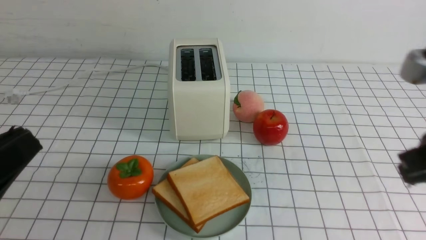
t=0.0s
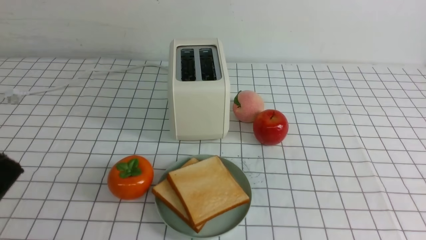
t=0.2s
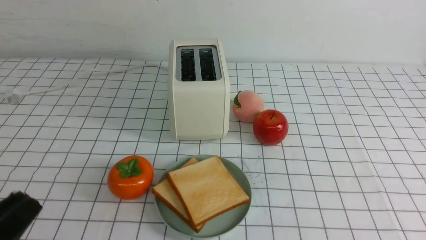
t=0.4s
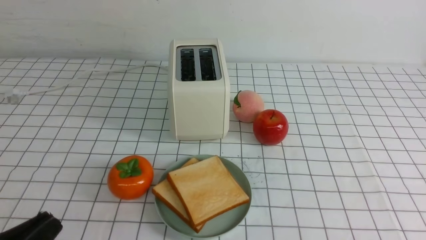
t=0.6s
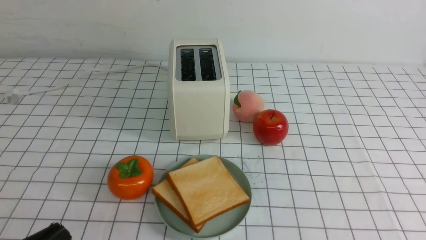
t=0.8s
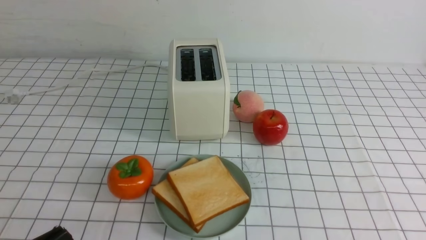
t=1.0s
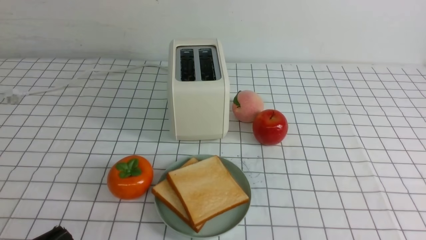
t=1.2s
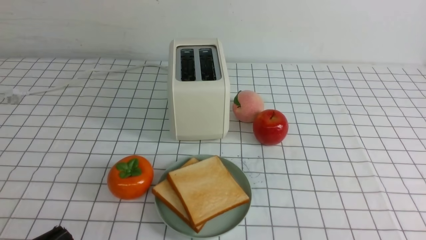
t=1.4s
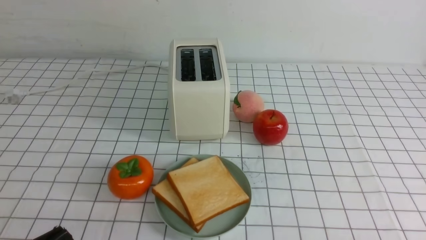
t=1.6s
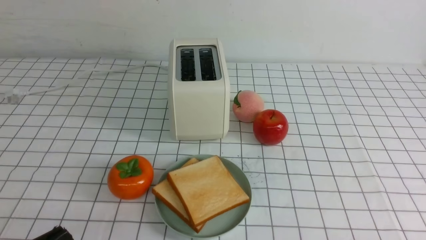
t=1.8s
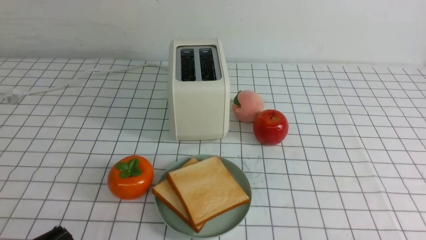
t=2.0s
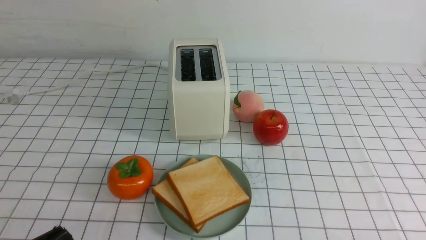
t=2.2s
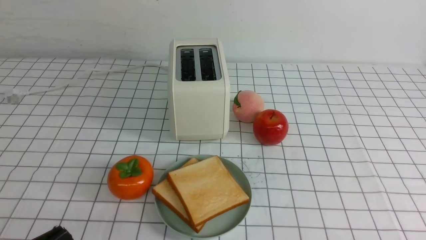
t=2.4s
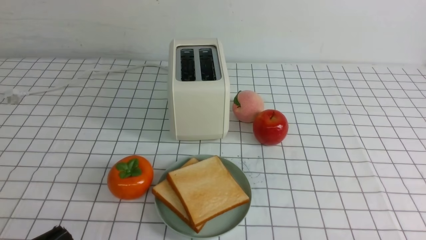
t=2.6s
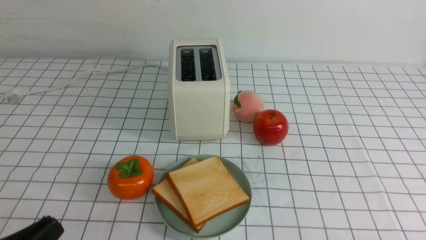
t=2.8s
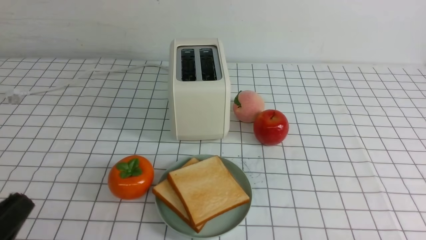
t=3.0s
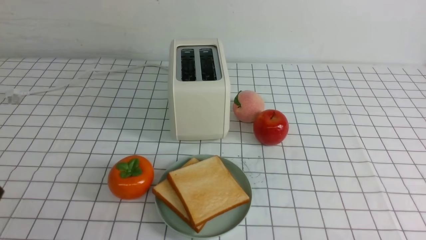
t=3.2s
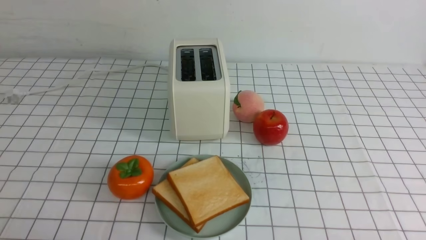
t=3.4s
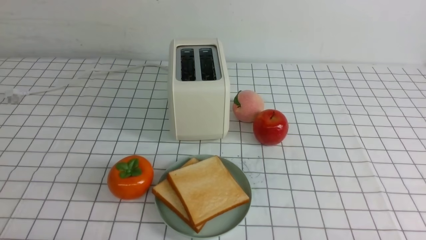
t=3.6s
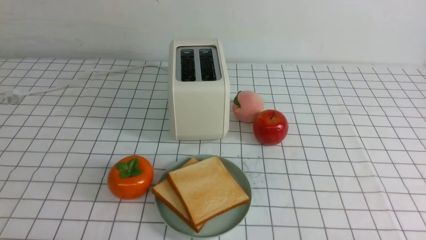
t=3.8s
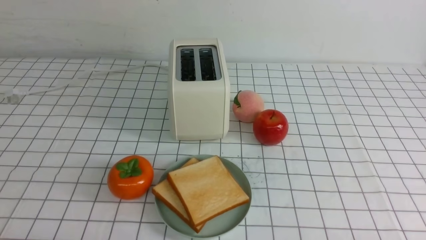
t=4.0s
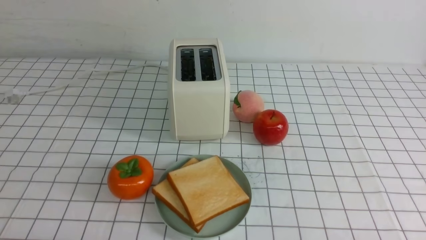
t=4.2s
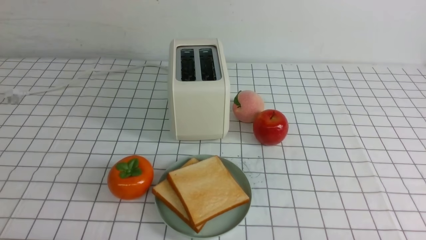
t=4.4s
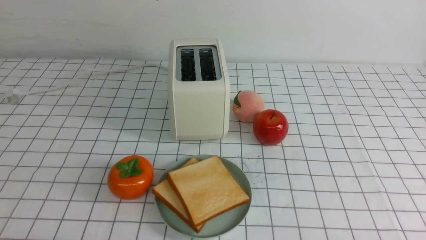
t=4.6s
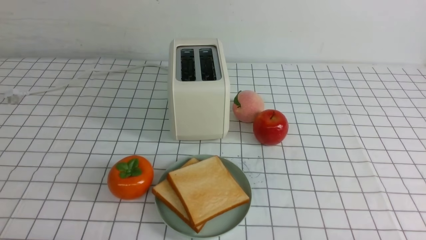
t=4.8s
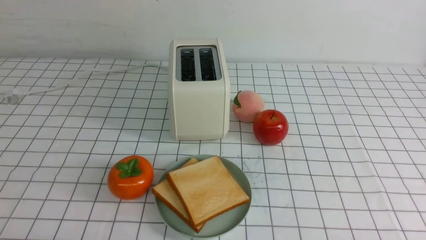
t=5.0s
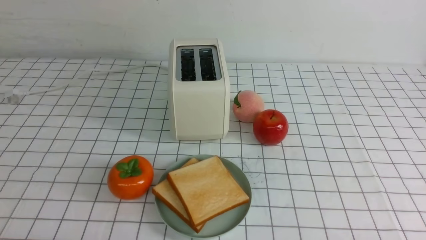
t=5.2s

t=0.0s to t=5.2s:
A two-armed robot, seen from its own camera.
Task of the whole recording: take toasted bread from bread machine on white checkered table place on plate.
t=0.0s to t=1.8s: The right gripper moves downward and backward, approximately 20 cm. The left gripper heads downward, covering approximately 10 cm.
